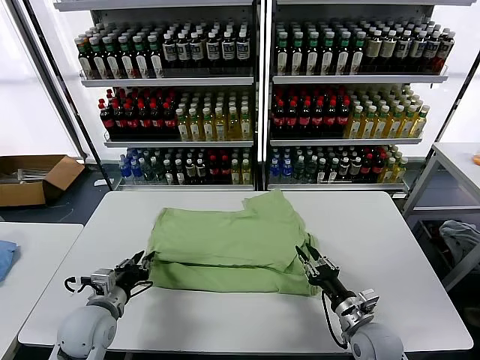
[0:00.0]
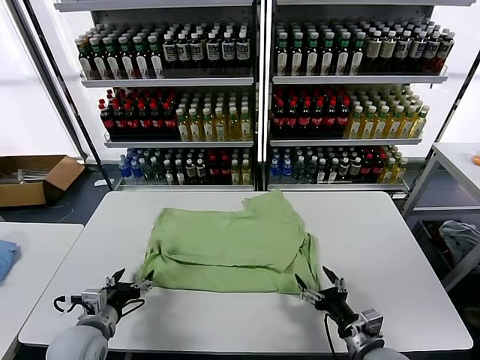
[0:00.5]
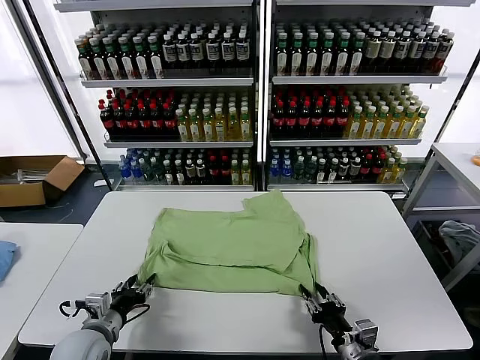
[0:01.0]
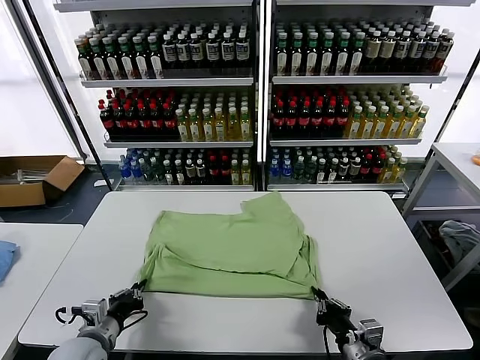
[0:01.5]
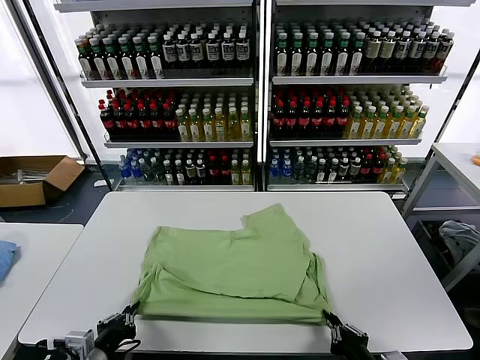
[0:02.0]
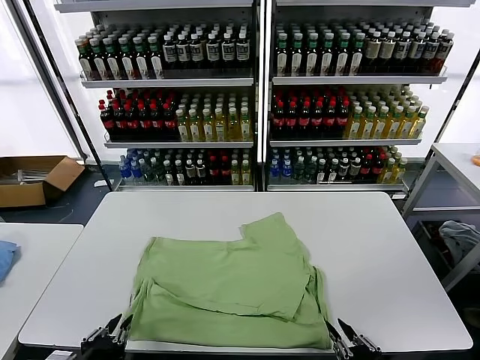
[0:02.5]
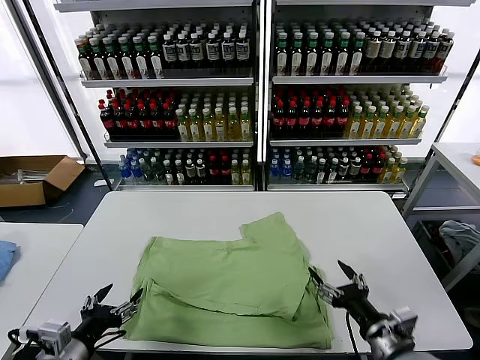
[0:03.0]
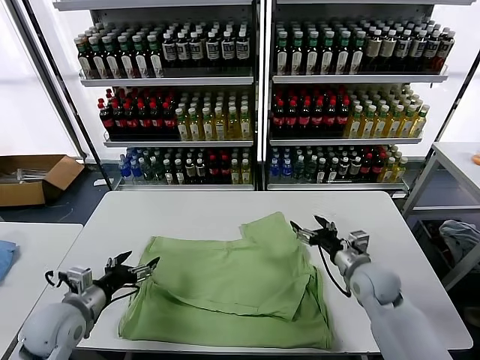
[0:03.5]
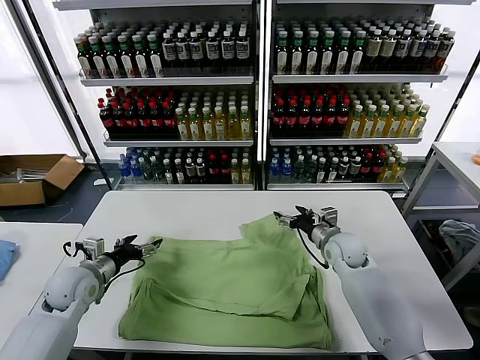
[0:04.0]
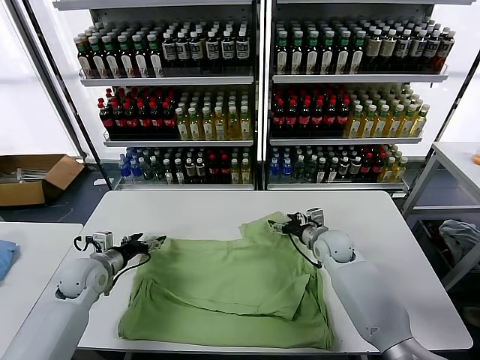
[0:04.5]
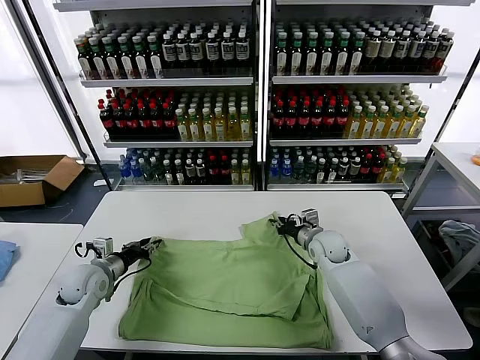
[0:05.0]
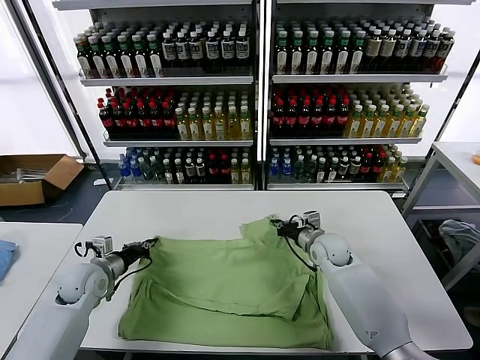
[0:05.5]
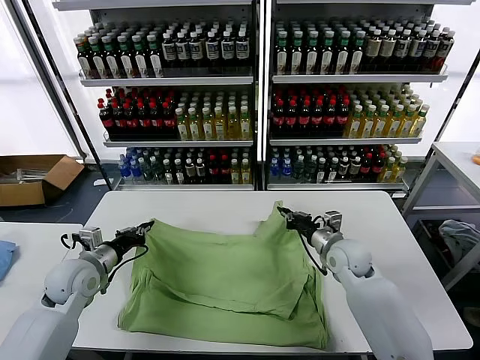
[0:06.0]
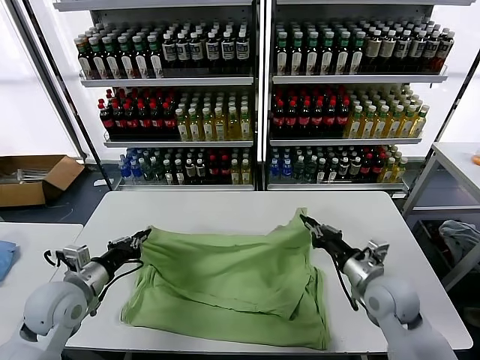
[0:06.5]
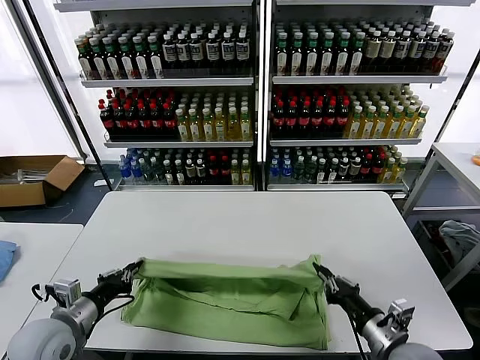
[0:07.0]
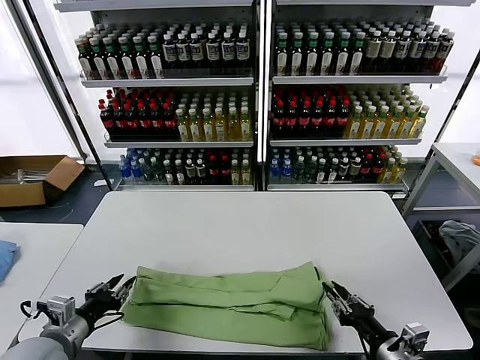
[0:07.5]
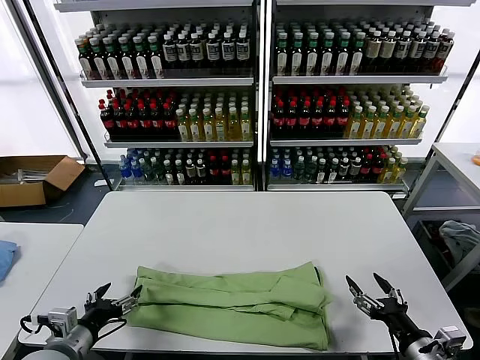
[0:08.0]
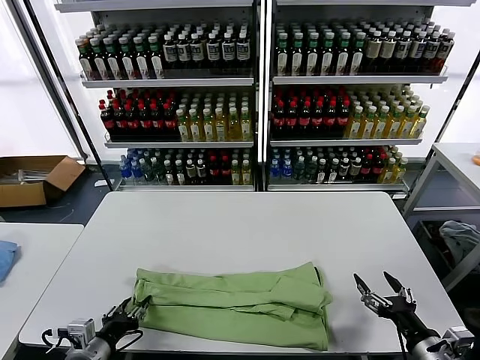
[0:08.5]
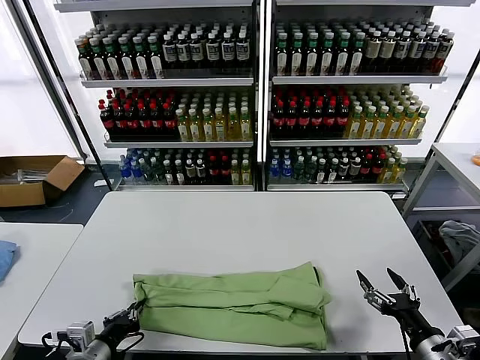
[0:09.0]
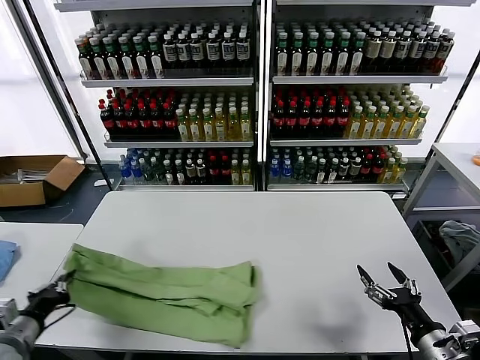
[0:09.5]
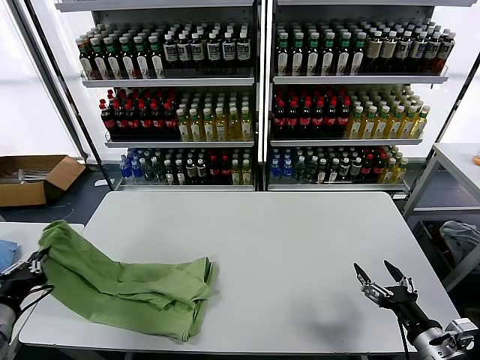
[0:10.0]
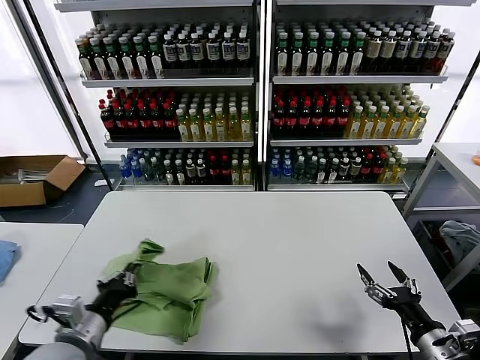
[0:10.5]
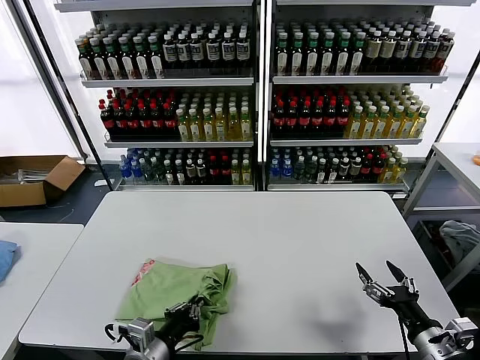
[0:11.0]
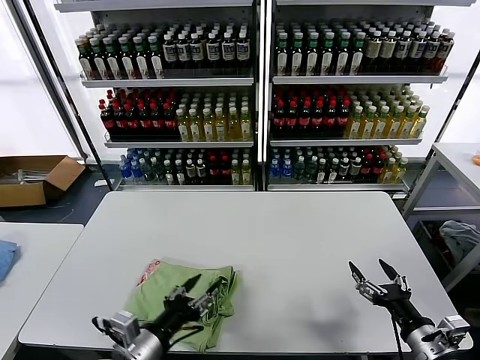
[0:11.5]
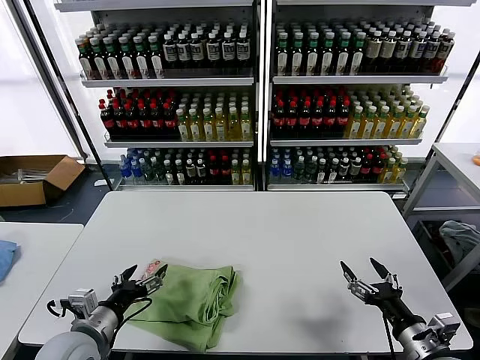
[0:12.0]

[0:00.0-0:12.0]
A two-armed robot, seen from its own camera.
Task of the whole recording: fold and organize the clothes.
Step, 0:00.5 to 0:02.5: Drag the clothes downward with both gripper.
Step, 0:03.0 to 0:05.0: use both grippers simultaneously to clamp the upper edge of the clothing fabric.
Step, 0:05.5 to 0:07.5: use both grippers to drag the upper edge of the fabric backward and fold it over the lower edge.
Step, 0:08.0 to 0:08.5: use the left gripper to clamp the left edge of the fabric.
Step, 0:09.0 to 0:11.5: use the left gripper to drag the left edge of the fabric to the left and folds it over the right edge.
0:00.0 to 0:02.0: The two grippers go some 15 cm backward. The left gripper closes its fingers, while the right gripper closes its fingers.
0:02.0 to 0:04.0: The right gripper moves forward, roughly 40 cm, and opens its fingers, while the left gripper shifts some 20 cm forward, and opens its fingers.
0:04.0 to 0:06.0: The left gripper closes up. The right gripper heads backward, covering about 5 cm, and closes its fingers.
0:06.0 to 0:08.0: The left gripper goes about 15 cm backward, and opens its fingers; the right gripper travels backward by approximately 25 cm, and opens.
0:08.0 to 0:10.0: The left gripper is displaced to the left and upward by some 10 cm, and closes its fingers.
0:10.0 to 0:12.0: The left gripper moves to the right and downward, some 15 cm, and opens.

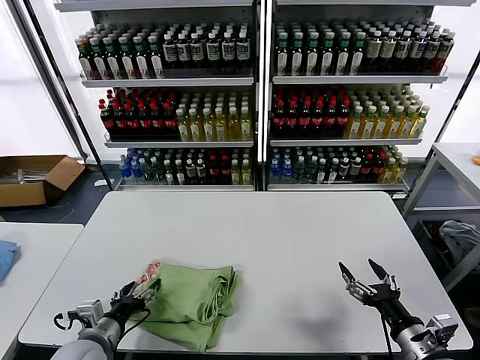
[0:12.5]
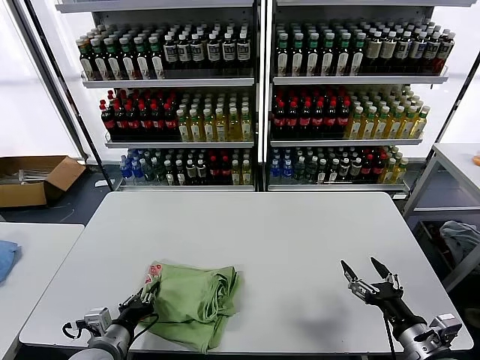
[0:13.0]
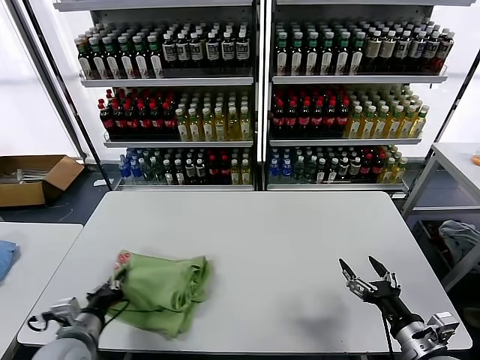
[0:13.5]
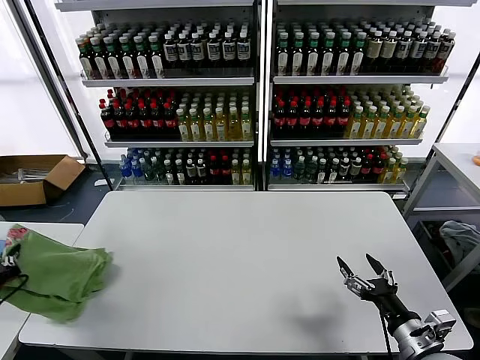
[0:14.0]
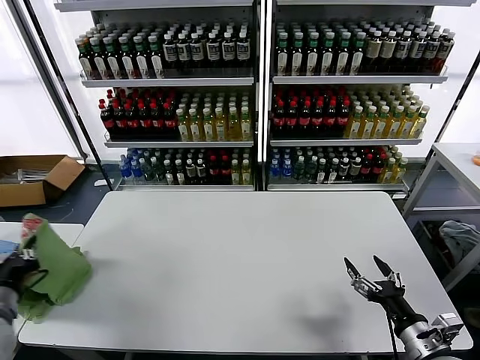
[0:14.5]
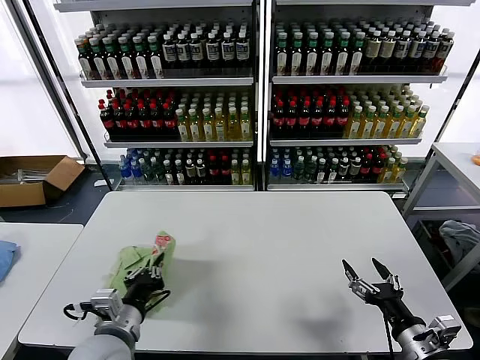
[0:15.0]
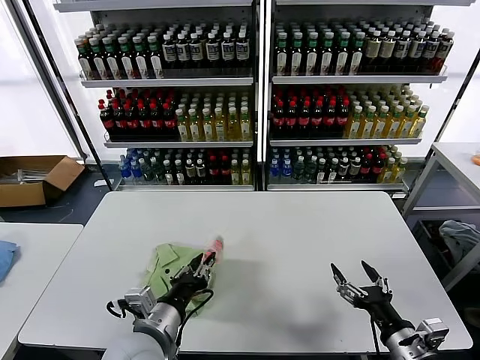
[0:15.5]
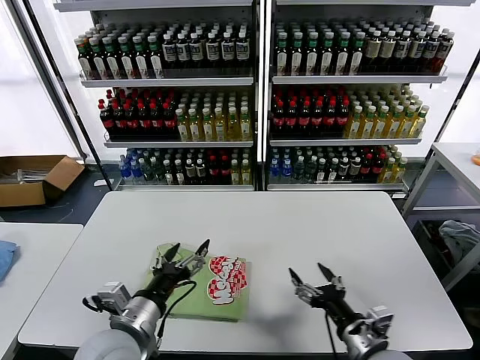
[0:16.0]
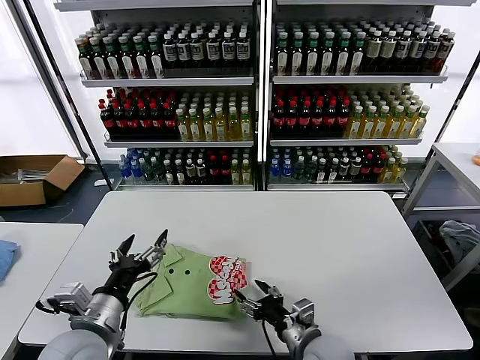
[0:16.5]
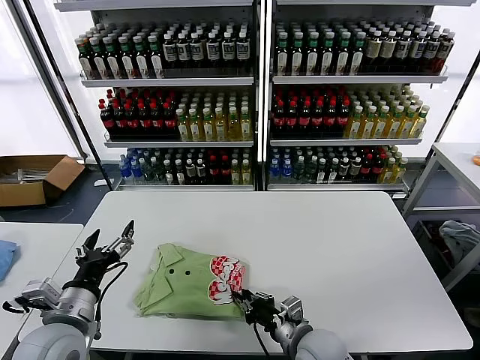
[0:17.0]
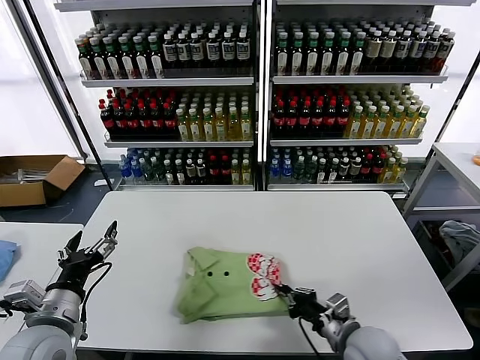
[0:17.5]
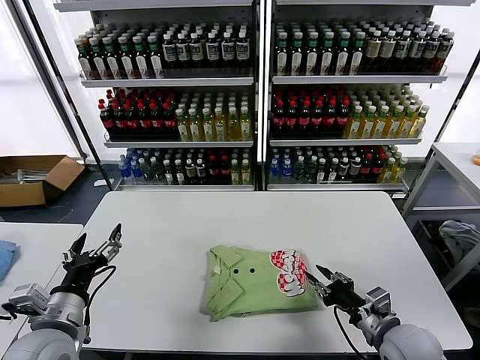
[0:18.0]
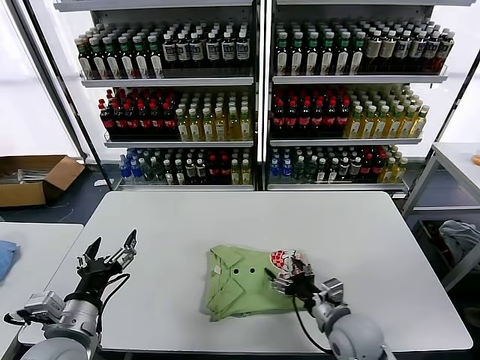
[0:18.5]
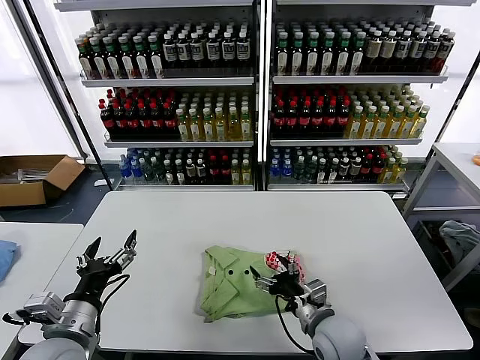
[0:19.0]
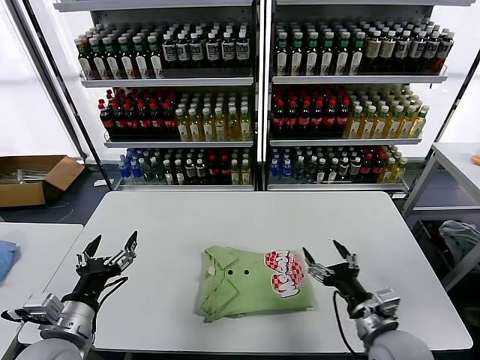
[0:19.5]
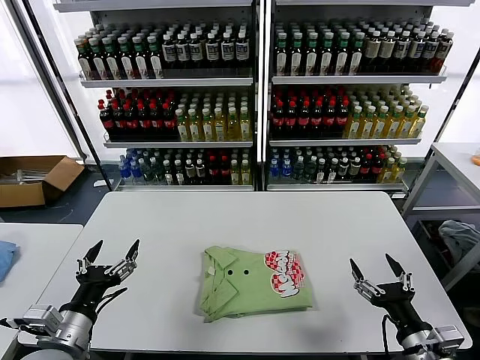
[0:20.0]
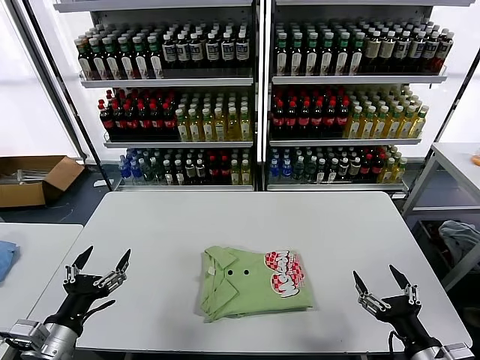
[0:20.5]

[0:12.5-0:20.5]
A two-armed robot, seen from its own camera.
Task of the whole recording: fold and organize the clothes.
Step, 0:12.5 to 0:15.5: Flip the folded clothes over with left gripper.
Step, 0:16.0 to 0:19.0: Drag the clothes to the center of the table.
0:12.5 to 0:14.5: The left gripper is displaced to the left and upward by some 20 cm, and closes up.
0:14.5 to 0:16.5: The right gripper goes some 20 cm to the left. Meanwhile the left gripper shifts some 20 cm to the right, and opens up.
0:16.5 to 0:18.5: The right gripper is displaced to the right by roughly 5 cm, and closes, then opens again.
0:18.5 to 0:20.5: The left gripper ends up about 5 cm from where it was; the right gripper shifts some 15 cm backward and to the right.
